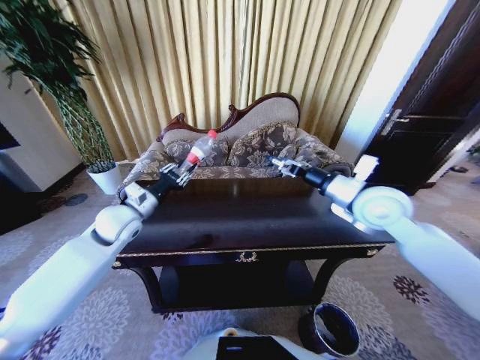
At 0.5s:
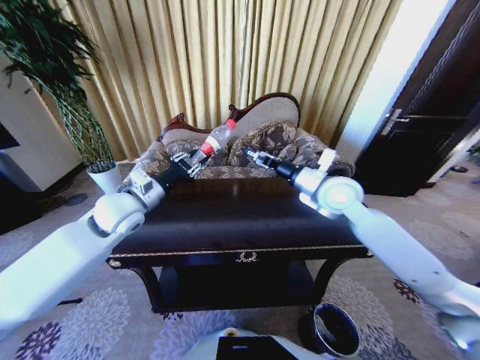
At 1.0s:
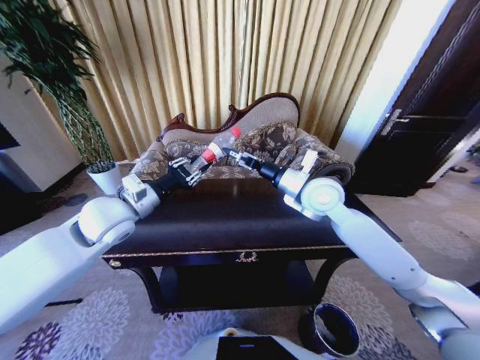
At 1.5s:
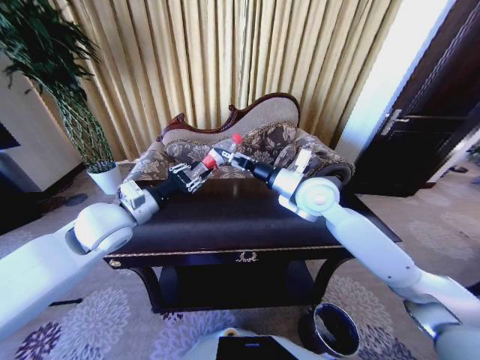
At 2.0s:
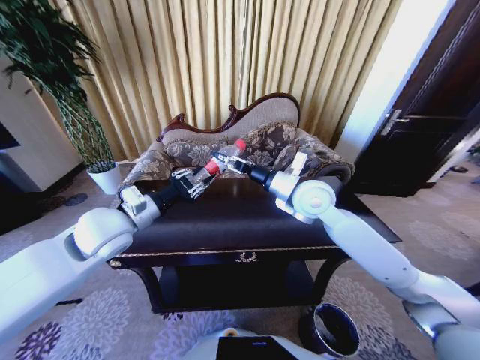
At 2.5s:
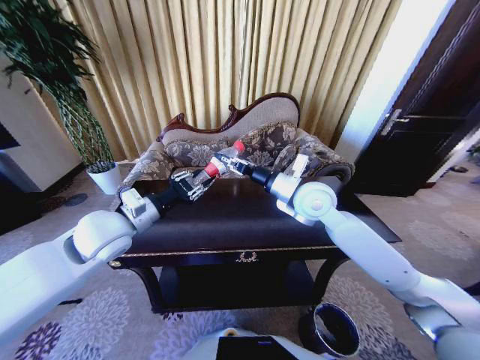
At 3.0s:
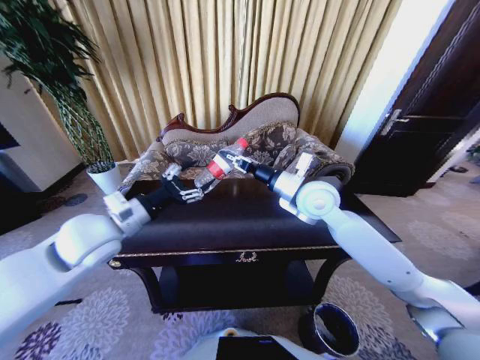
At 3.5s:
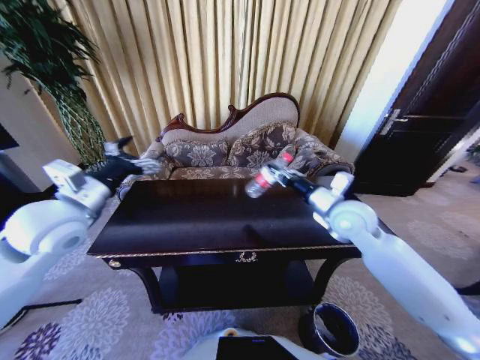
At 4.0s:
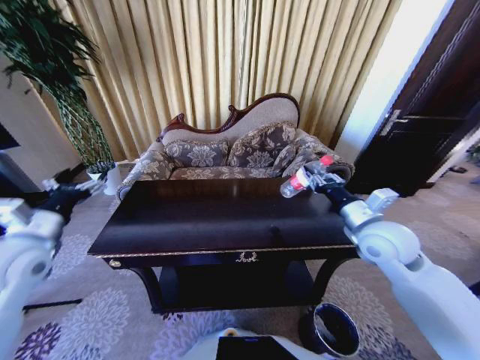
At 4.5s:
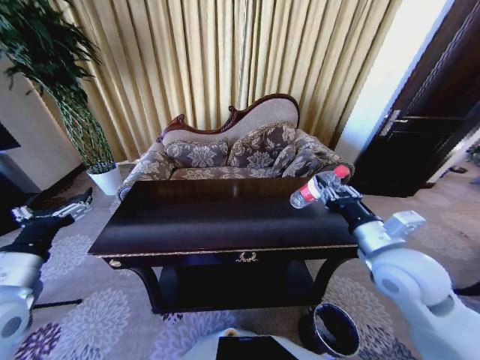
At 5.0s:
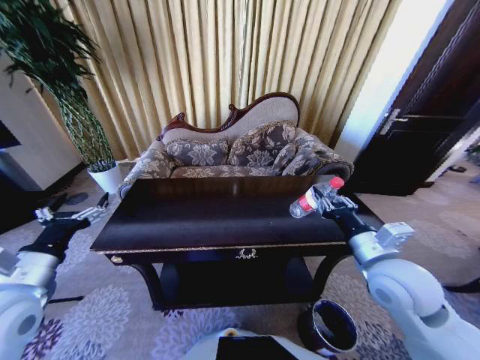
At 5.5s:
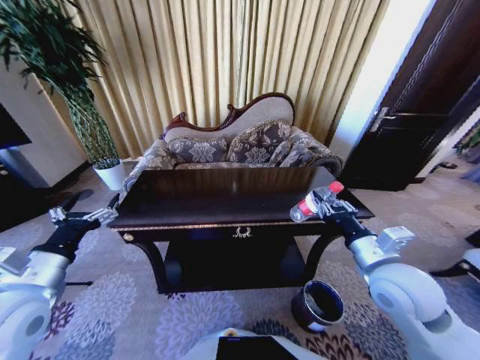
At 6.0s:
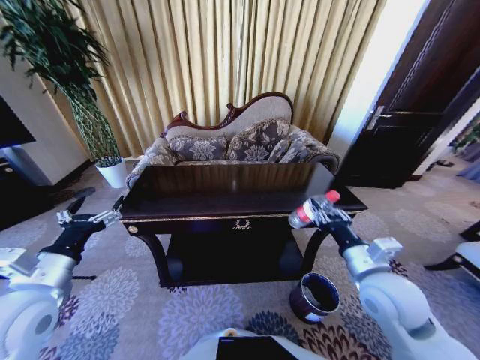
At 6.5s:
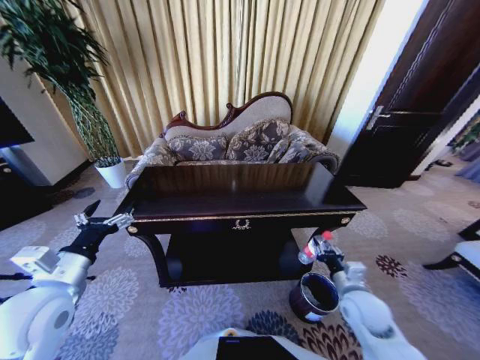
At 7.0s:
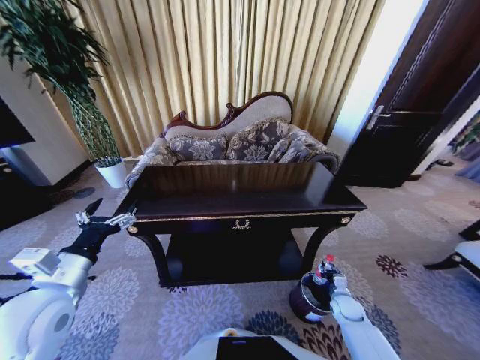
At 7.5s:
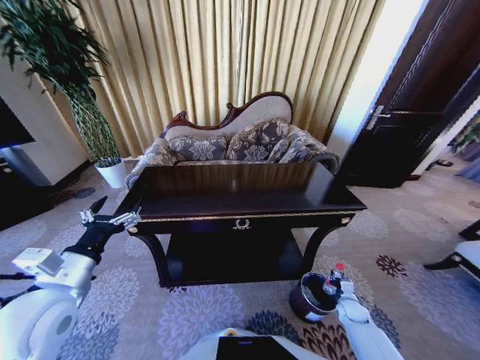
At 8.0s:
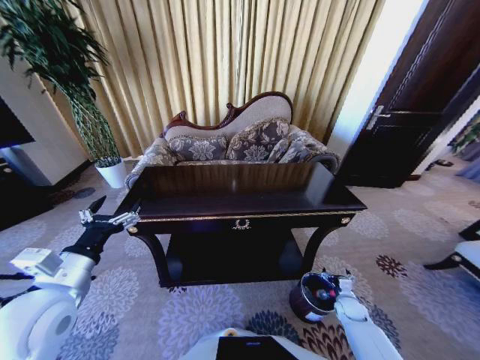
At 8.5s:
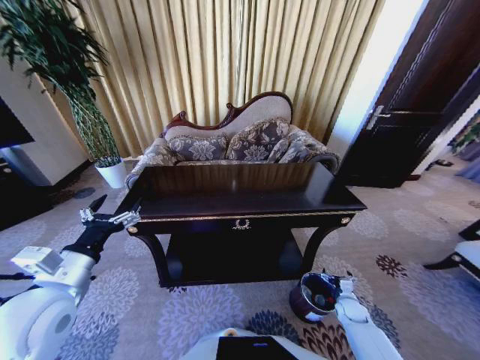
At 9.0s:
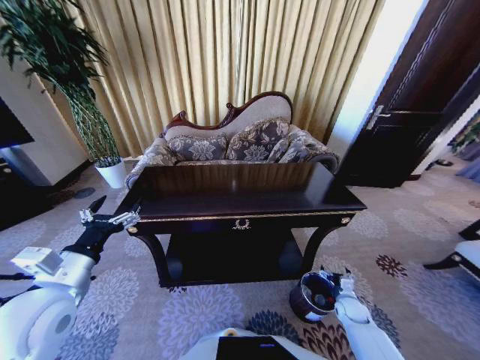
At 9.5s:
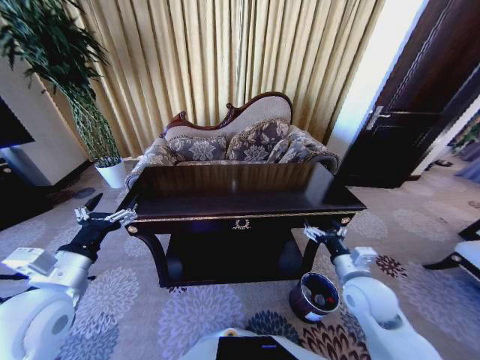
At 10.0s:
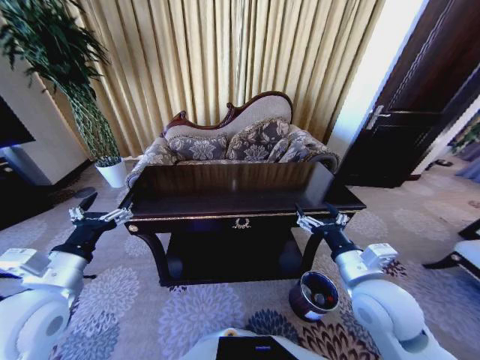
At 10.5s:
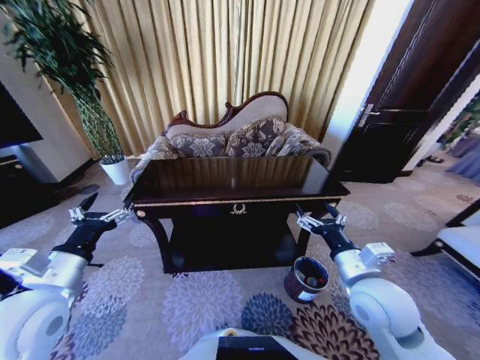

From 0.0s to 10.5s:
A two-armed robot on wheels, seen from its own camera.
Task of the whole recording: Move to the front of the table and place the trash on the table into the trash bin.
From 0.0s to 2.0s: The left gripper travels backward and upward by approximately 10 cm, while the right gripper is displaced to the left by approximately 10 cm.
From 2.0s to 4.0s: The right gripper moves to the right and backward, approximately 15 cm, and closes up. The left gripper heads to the left, covering approximately 15 cm, and opens.
From 4.0s to 6.5s: The right gripper is displaced downward and backward by some 20 cm; the left gripper goes approximately 10 cm backward and to the right.
From 6.5s to 8.5s: The right gripper travels downward and to the right by approximately 25 cm, and opens.
From 8.5s to 10.5s: The right gripper travels upward and to the left by some 40 cm.
